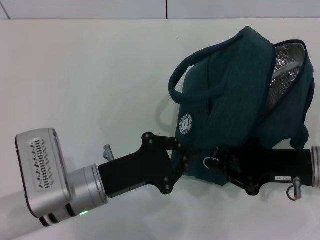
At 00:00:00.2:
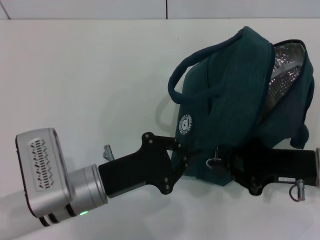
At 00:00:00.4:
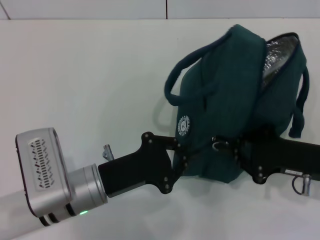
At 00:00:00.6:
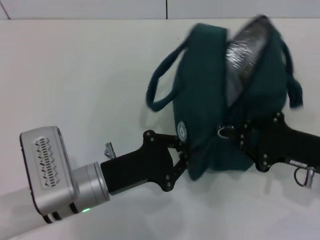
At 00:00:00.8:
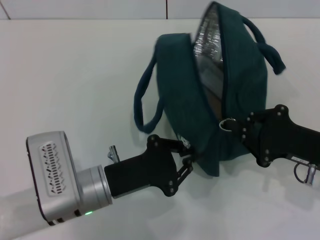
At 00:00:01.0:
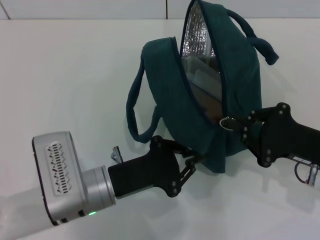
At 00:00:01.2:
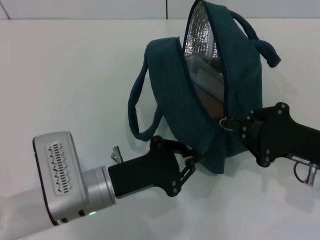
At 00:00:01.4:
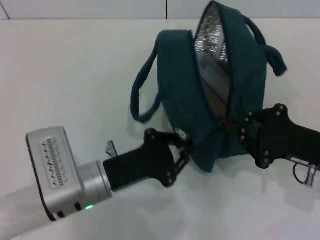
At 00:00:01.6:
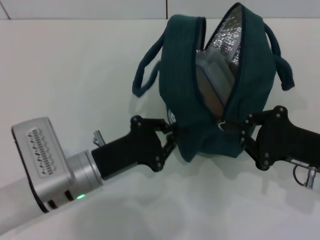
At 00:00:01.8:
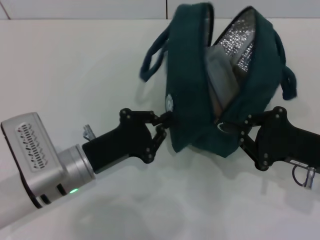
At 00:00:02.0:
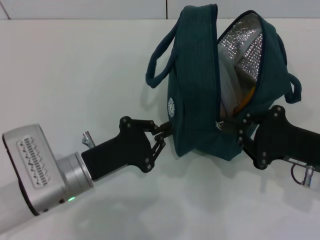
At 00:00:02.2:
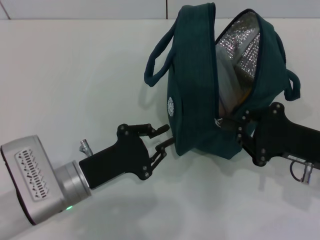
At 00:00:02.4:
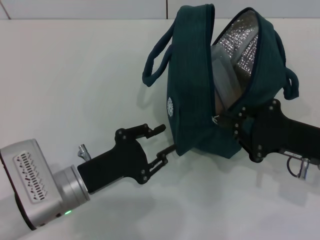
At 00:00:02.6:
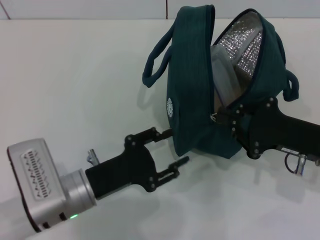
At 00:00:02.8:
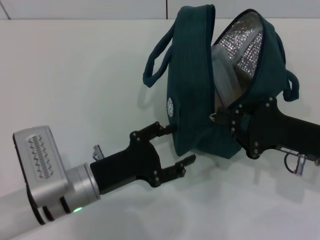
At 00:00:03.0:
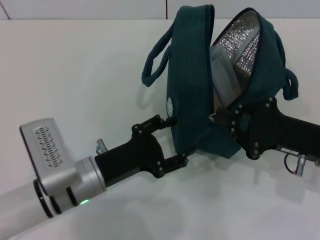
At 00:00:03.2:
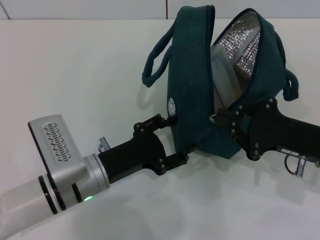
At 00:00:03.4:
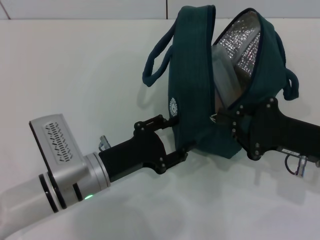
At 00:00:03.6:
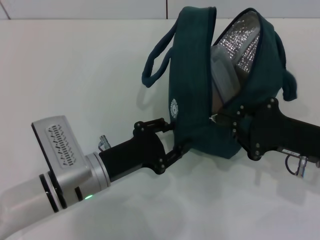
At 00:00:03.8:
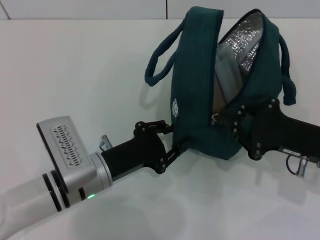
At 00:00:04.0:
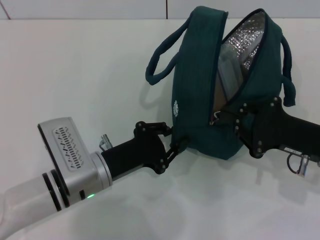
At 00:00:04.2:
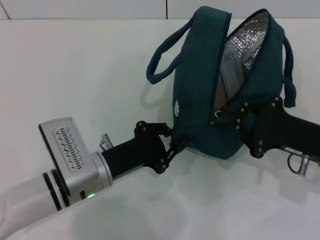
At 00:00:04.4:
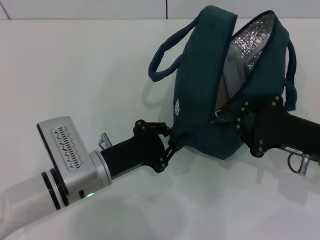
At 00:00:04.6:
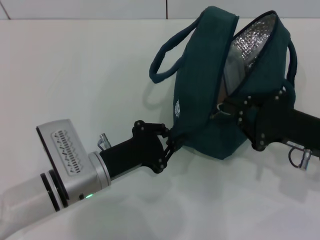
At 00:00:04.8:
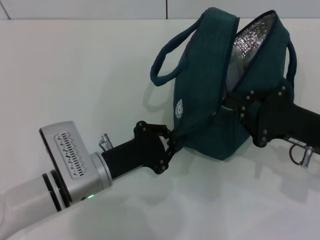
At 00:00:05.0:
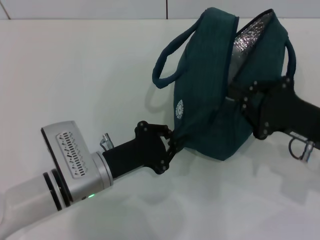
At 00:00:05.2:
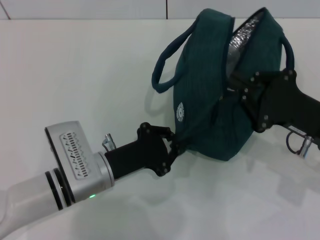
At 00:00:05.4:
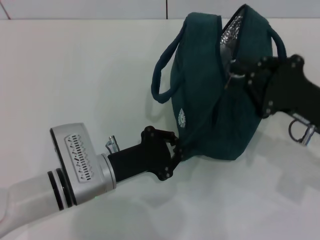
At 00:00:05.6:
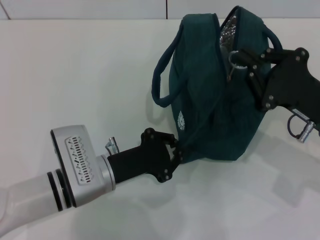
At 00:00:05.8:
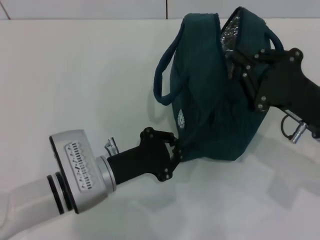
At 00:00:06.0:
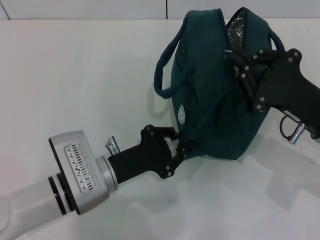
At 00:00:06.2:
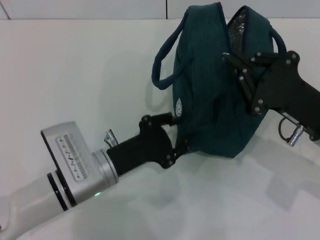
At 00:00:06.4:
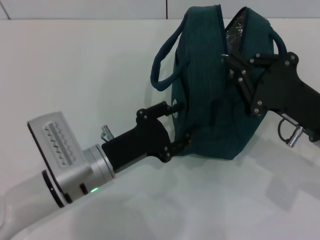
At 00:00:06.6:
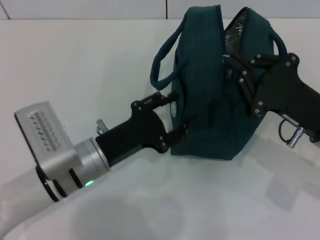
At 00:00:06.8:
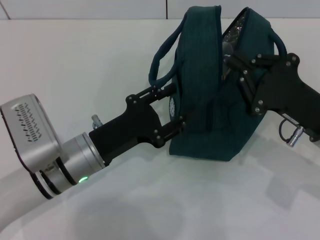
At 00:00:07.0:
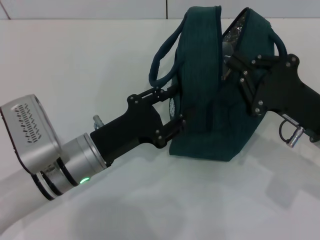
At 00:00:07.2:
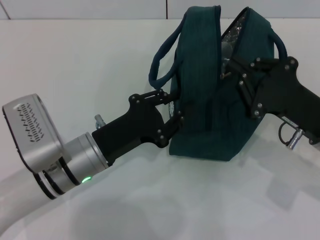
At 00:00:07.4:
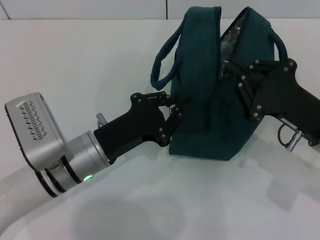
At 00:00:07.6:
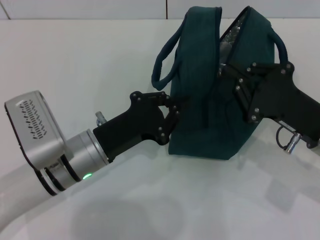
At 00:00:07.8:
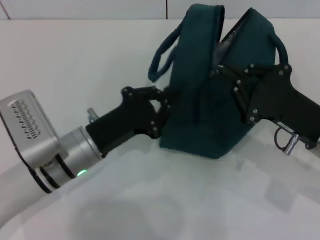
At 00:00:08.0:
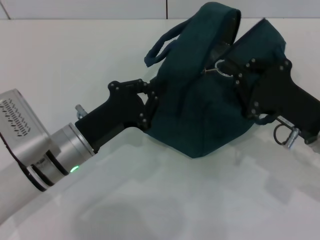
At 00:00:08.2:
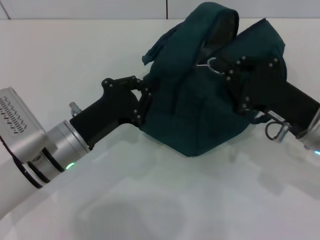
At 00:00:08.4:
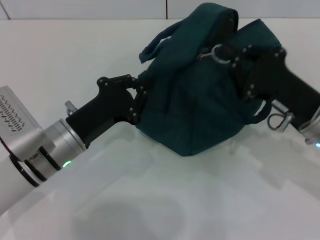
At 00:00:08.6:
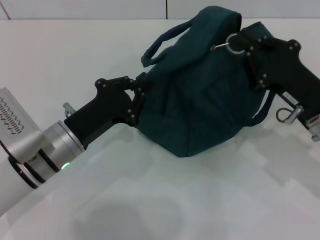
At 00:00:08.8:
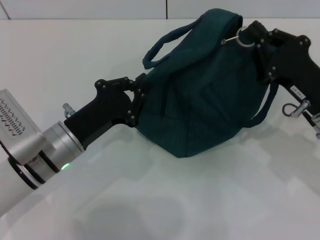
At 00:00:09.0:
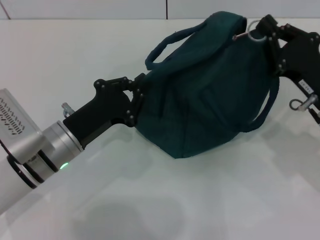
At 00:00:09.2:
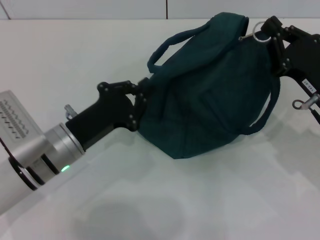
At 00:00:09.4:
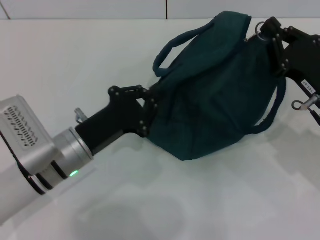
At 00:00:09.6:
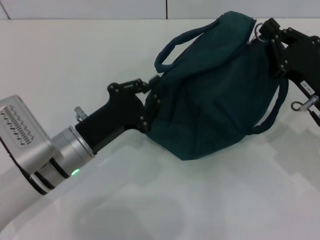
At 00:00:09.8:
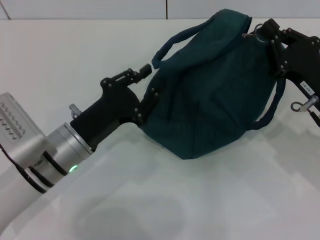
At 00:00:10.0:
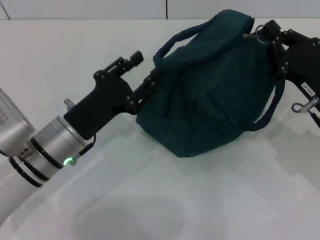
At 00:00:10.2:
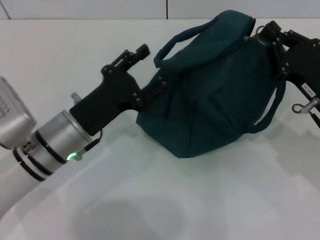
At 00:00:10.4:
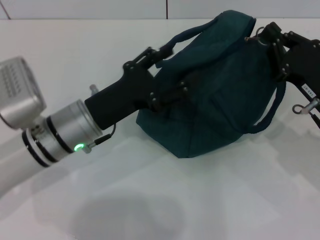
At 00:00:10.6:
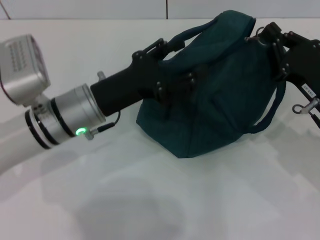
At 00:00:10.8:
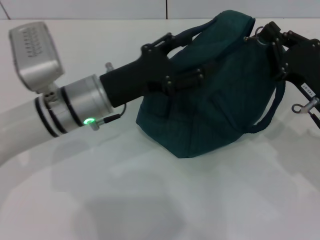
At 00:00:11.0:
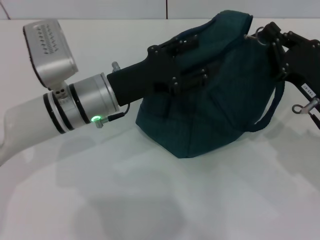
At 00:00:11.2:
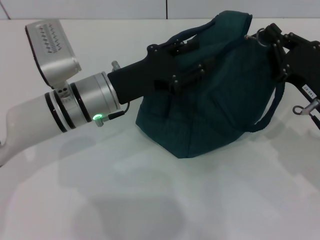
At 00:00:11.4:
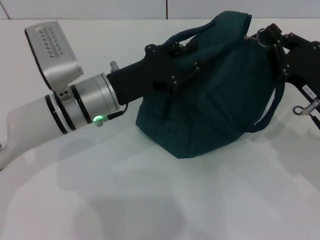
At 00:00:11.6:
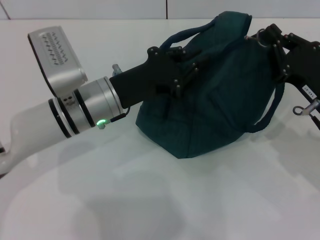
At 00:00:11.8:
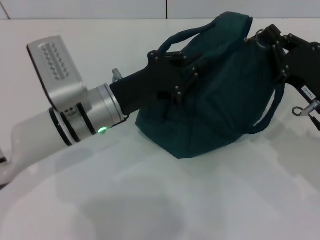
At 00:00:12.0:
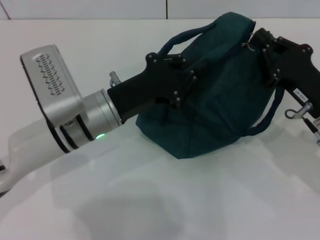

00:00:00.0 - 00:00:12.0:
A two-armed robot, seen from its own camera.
00:00:01.6 - 00:00:03.0: The left gripper opens its fingers.
00:00:03.0 - 00:00:04.4: The left gripper closes.
00:00:06.0 - 00:00:07.6: The left gripper opens, then closes again.
00:00:09.0 - 00:00:10.4: The left gripper opens.
00:00:10.4 - 00:00:12.0: The left gripper closes up.

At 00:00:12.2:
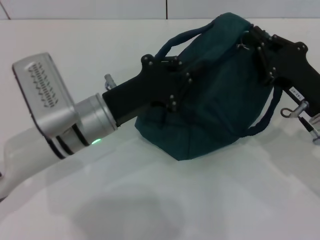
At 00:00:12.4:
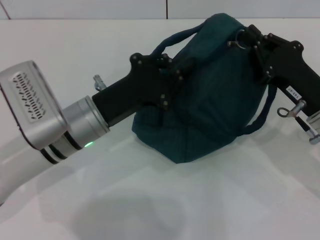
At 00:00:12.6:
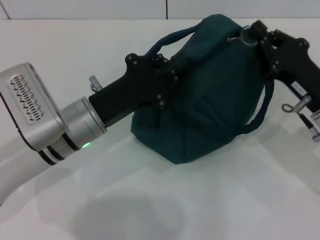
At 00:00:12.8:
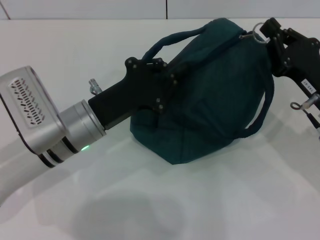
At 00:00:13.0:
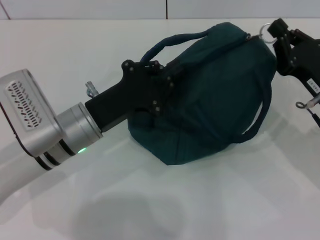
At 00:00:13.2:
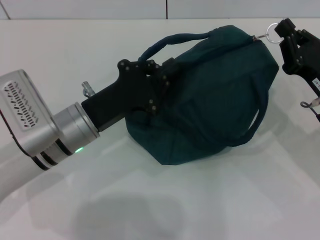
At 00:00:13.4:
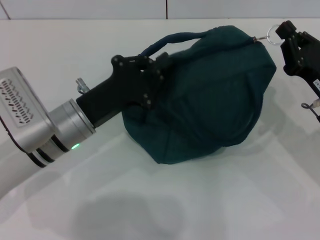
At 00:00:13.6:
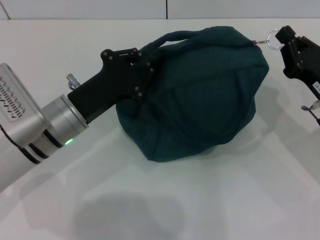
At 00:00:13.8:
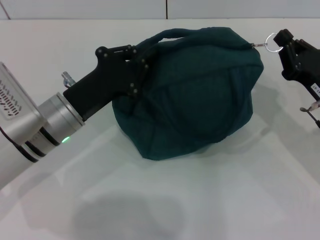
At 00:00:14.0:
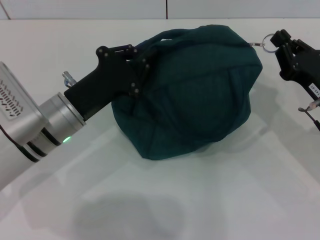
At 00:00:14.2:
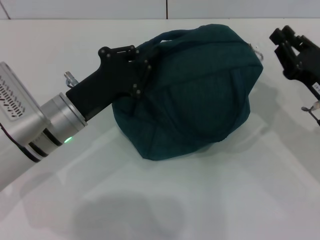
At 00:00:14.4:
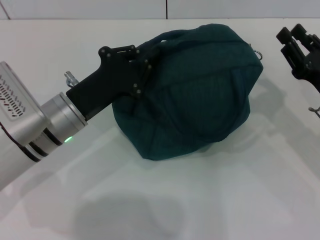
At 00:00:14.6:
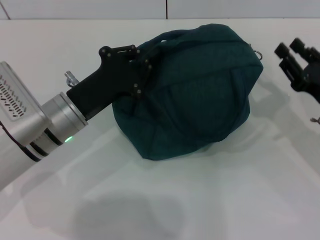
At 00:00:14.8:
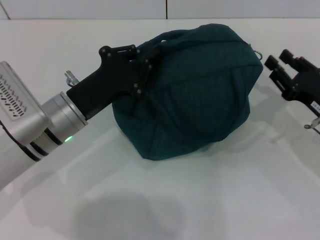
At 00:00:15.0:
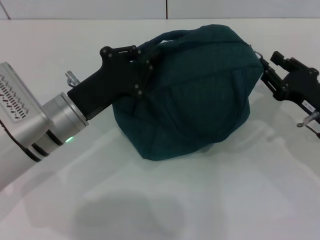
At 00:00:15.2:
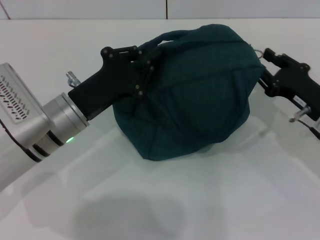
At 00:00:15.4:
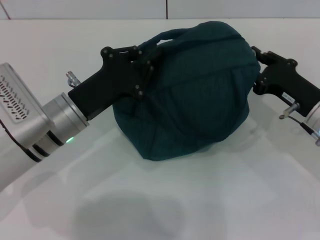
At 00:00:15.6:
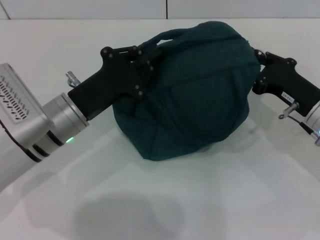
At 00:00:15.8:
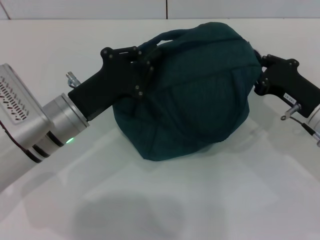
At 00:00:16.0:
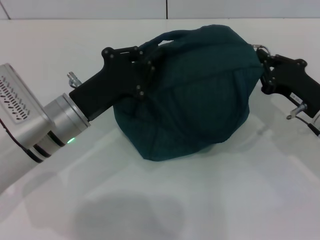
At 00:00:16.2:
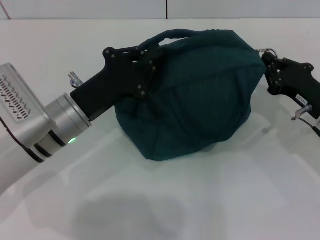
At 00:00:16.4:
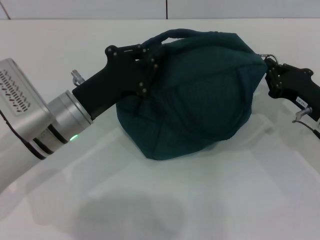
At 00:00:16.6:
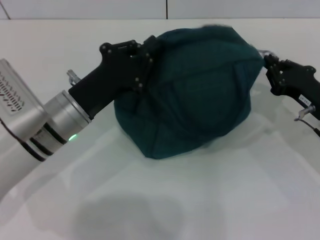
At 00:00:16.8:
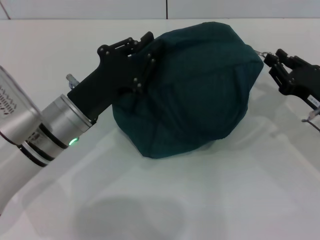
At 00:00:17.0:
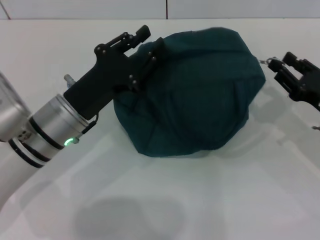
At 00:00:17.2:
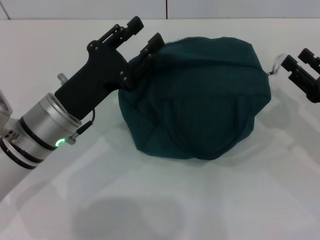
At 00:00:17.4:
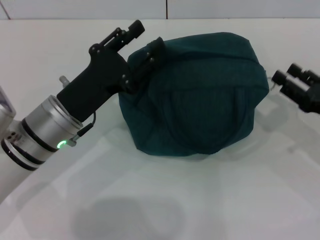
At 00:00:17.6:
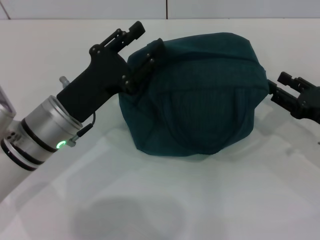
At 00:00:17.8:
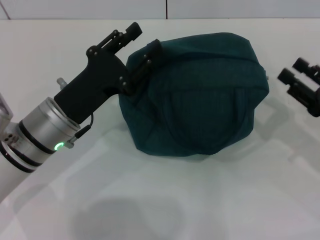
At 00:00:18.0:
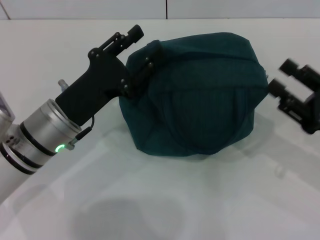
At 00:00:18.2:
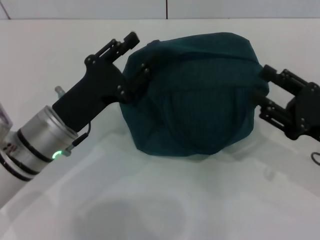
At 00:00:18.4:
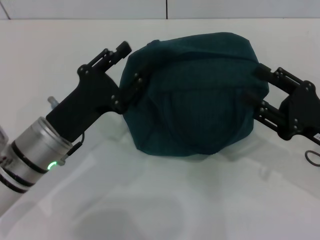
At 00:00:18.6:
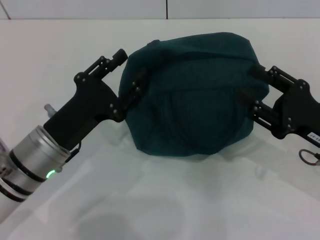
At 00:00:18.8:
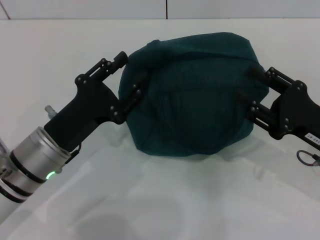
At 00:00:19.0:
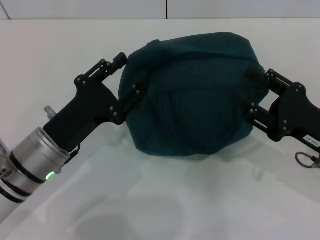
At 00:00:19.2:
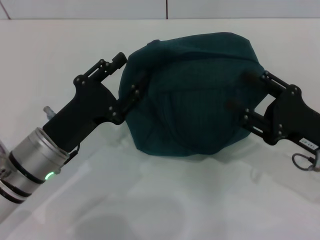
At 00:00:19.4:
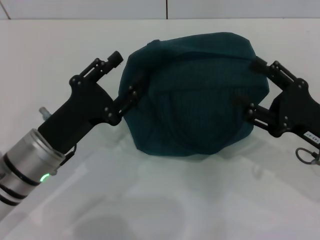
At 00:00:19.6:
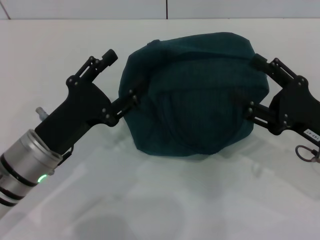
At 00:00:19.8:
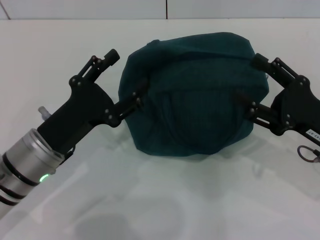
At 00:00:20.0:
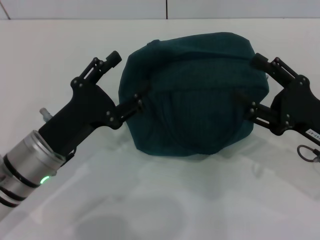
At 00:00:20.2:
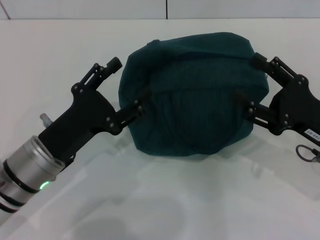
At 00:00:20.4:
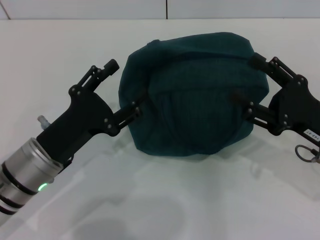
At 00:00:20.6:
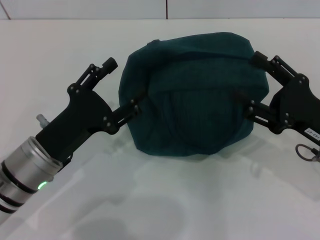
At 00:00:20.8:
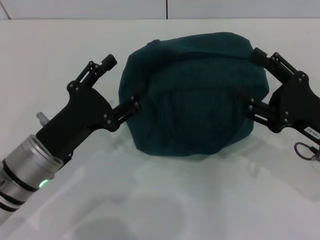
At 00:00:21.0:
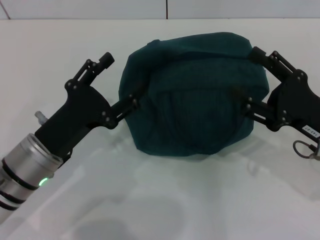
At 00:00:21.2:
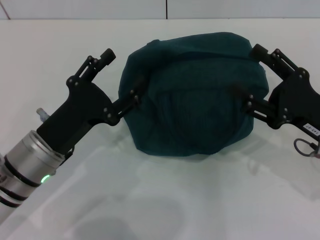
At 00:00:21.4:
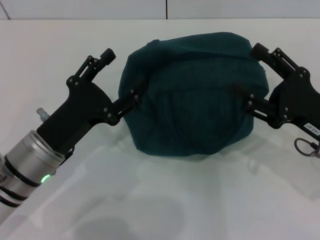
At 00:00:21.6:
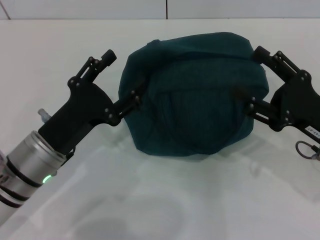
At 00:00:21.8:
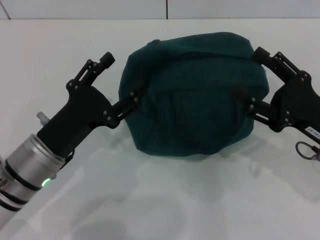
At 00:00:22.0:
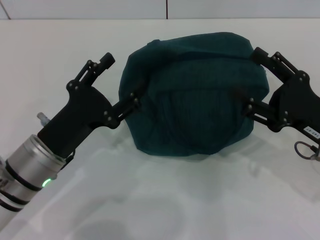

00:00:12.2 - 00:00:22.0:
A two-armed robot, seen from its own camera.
Step, 00:00:12.2 - 00:00:17.0: Hold the lunch bag with your left hand.
00:00:13.6 - 00:00:15.0: The right gripper opens.
00:00:15.0 - 00:00:16.4: The right gripper closes up.
00:00:16.4 - 00:00:17.8: The right gripper goes about 5 cm backward, and opens its fingers. The left gripper opens up.
00:00:17.8 - 00:00:19.2: The right gripper travels to the left by about 5 cm.
00:00:19.2 - 00:00:20.6: The grippers stay close to where they were, moving slightly.
00:00:20.6 - 00:00:22.0: Both grippers stay about where they are.
